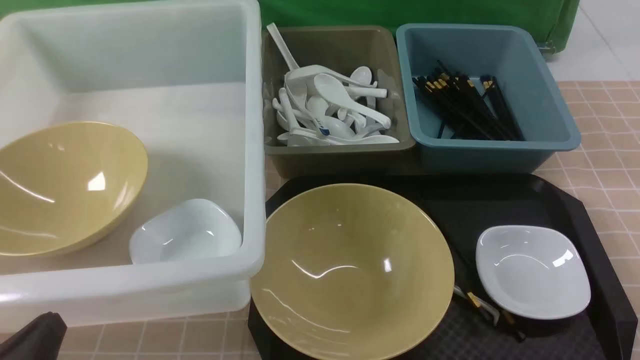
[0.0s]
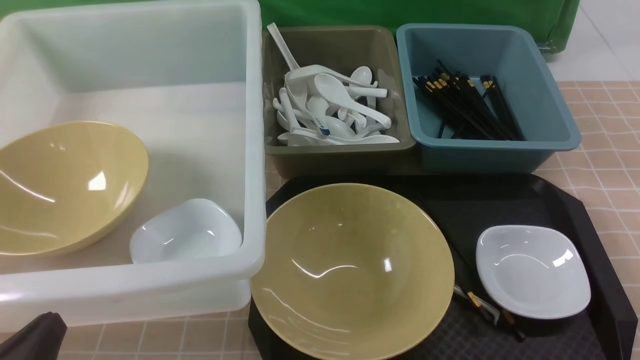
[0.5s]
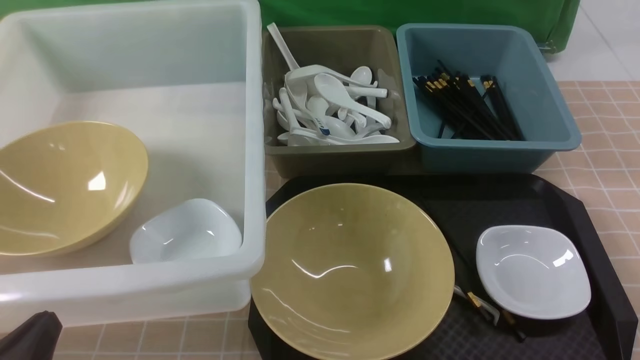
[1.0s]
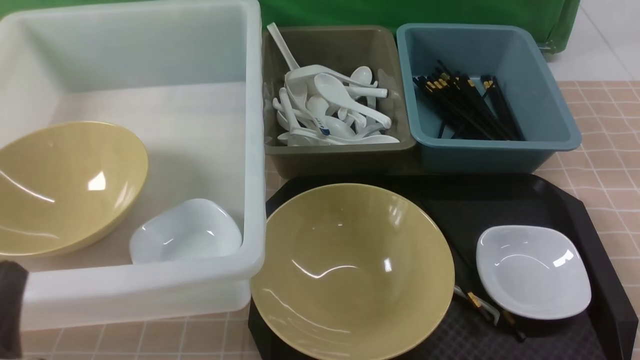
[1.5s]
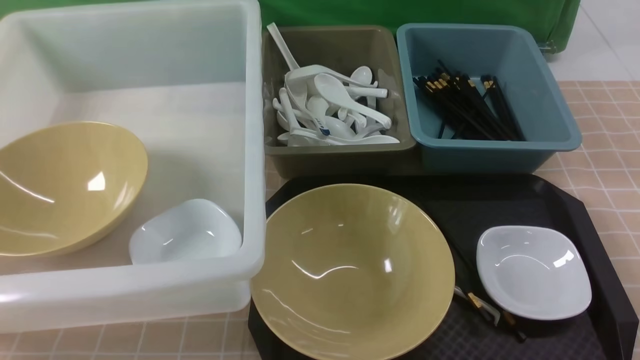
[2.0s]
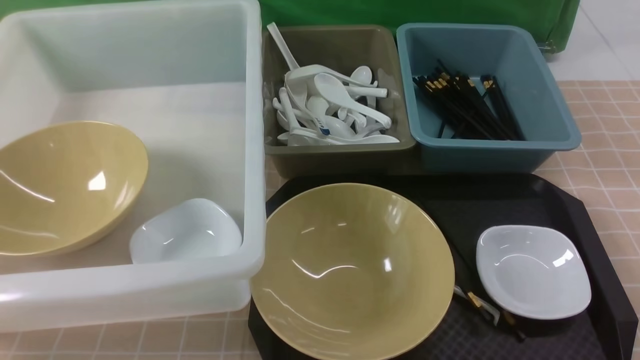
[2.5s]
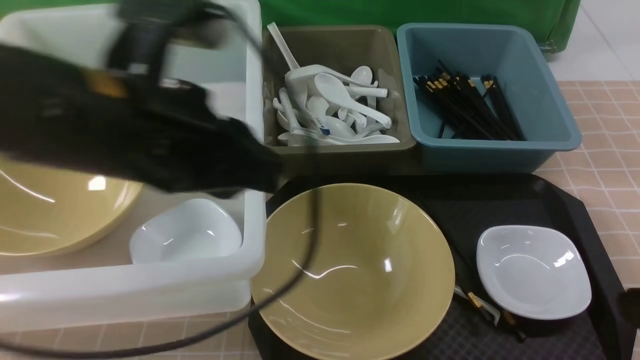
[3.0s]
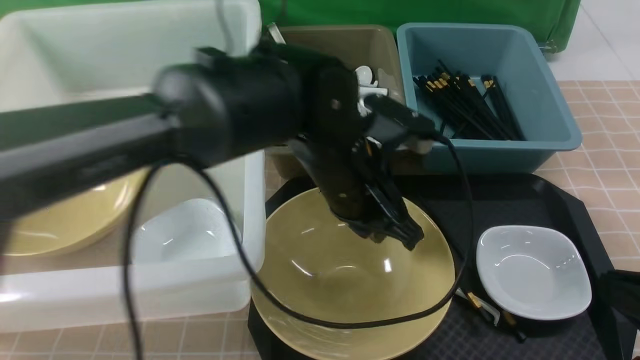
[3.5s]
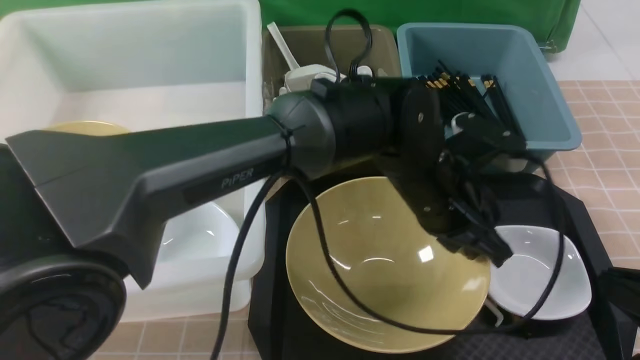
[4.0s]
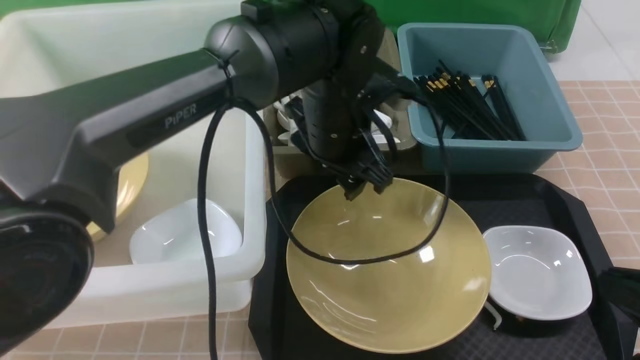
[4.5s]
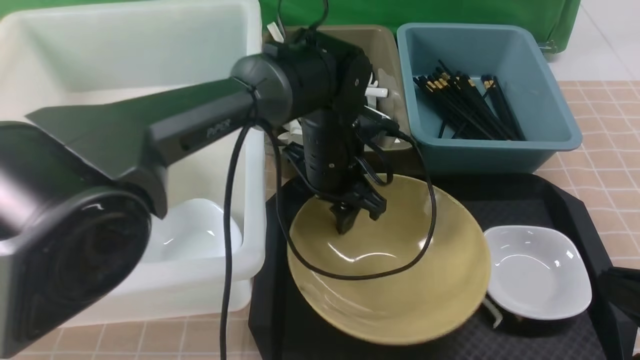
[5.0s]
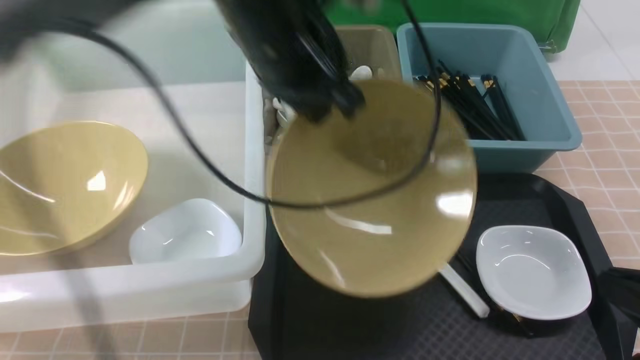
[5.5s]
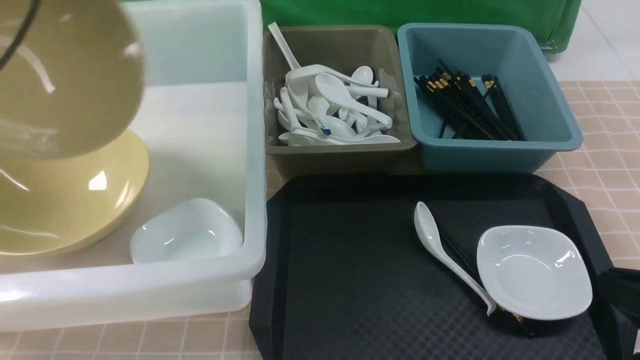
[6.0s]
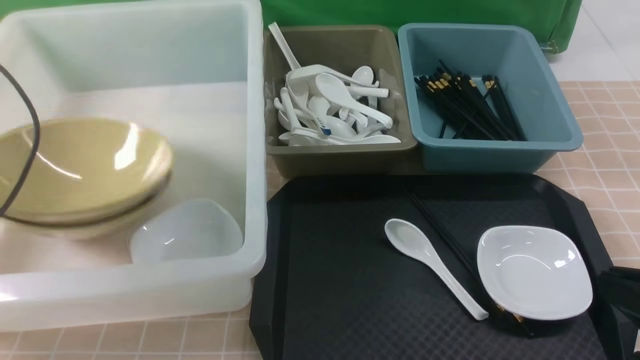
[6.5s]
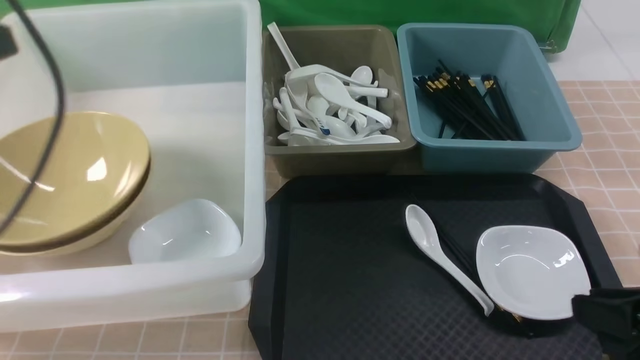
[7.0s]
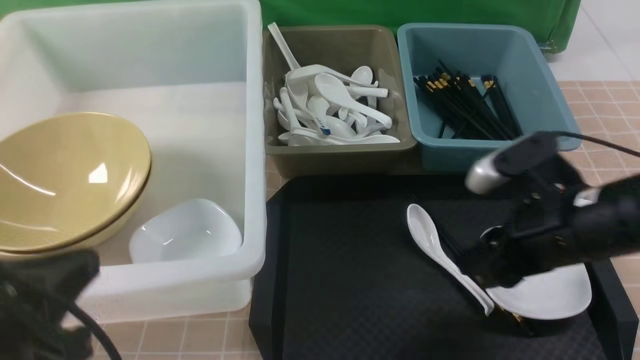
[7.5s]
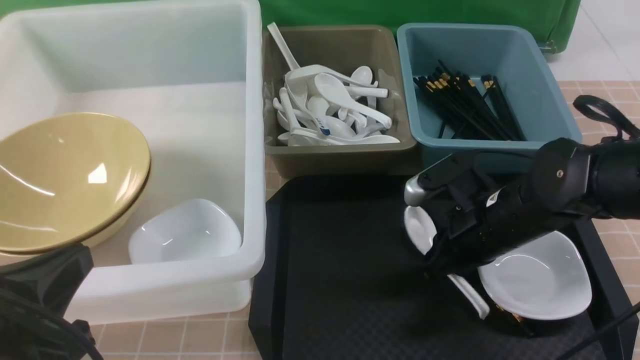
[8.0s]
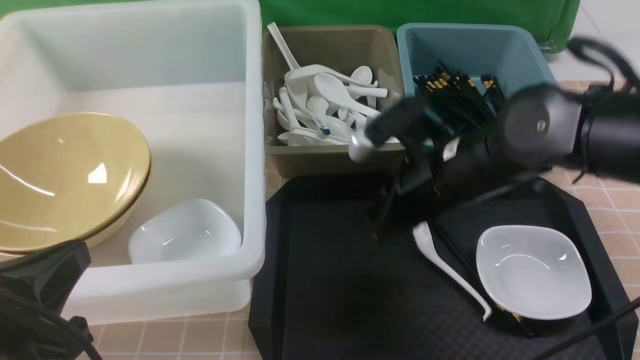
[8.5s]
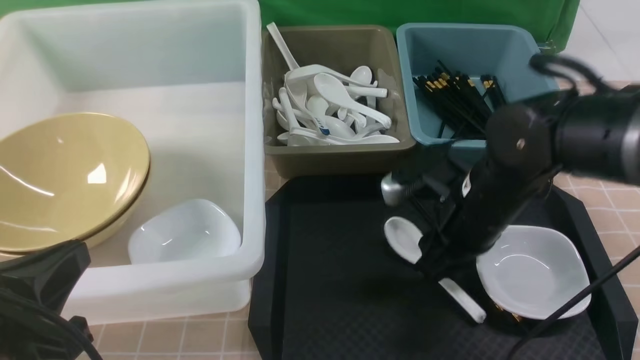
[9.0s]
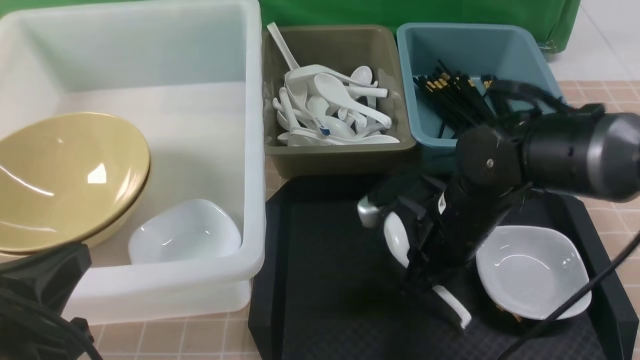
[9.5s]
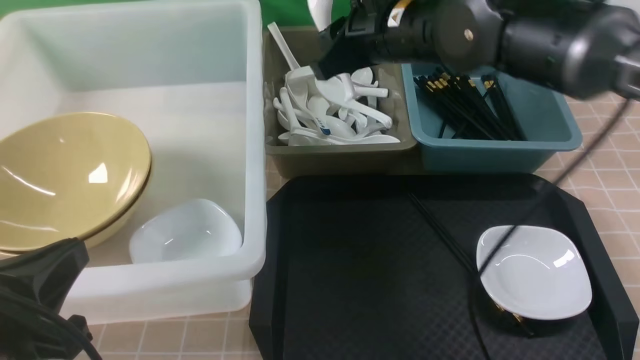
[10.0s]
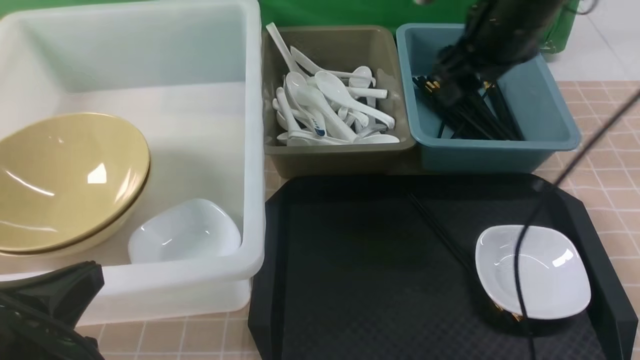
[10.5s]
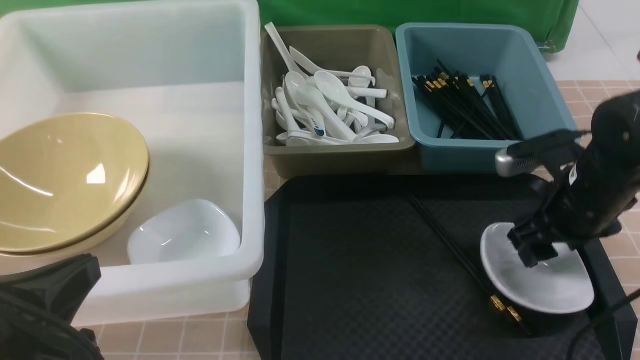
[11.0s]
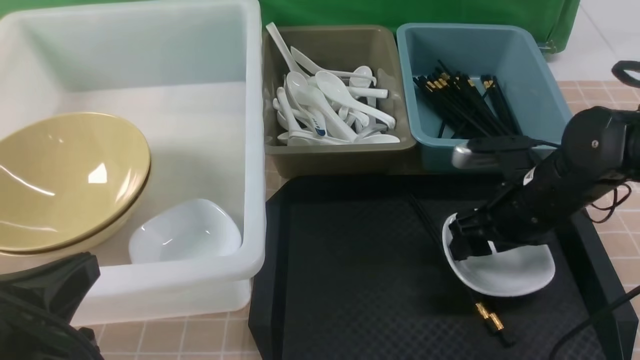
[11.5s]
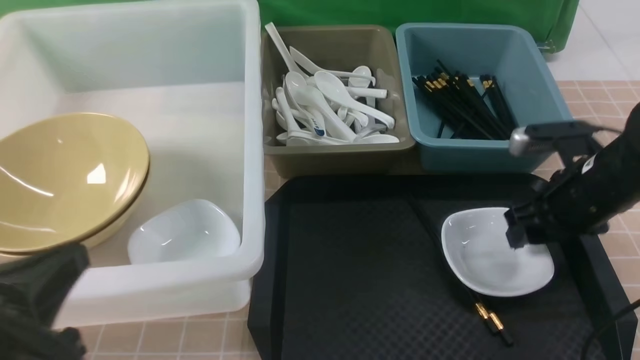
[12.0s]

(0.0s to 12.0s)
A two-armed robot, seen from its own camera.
Task of the whole recording: on brown table put chopsticks spoon bowls plates into blue grey white boxes.
Step, 0.0s - 5.0s: use the left arm to grab the yellow noodle bowl on the left.
Step, 5.5s - 6.5s: use the left arm to put the noodle bowl into the large storage box on the left.
Step, 7.0s - 9.5s: use the right arm to grab the soup spoon in the middle.
0.0s - 2.0s: The left gripper travels upward by about 10 cm.
2.0s - 4.0s: The left gripper goes about 40 cm to the right and forward. The right gripper moves forward, approximately 5 cm, and reaches approximately 10 cm upward, then returns.
4.0s - 6.0s: The left gripper shifts about 40 cm to the left and upward, and opens, then closes again.
6.0s - 8.0s: The left gripper is displaced backward, downward and to the right by approximately 25 cm, and opens and closes again. Meanwhile the right gripper shifts about 25 cm forward, to the left and downward, and opens, then closes once more.
8.0s - 10.0s: The right gripper goes up and down, some 15 cm each way, reversing 2 times, and opens.
10.0s - 12.0s: The right gripper goes approximately 25 cm to the right, downward and backward.

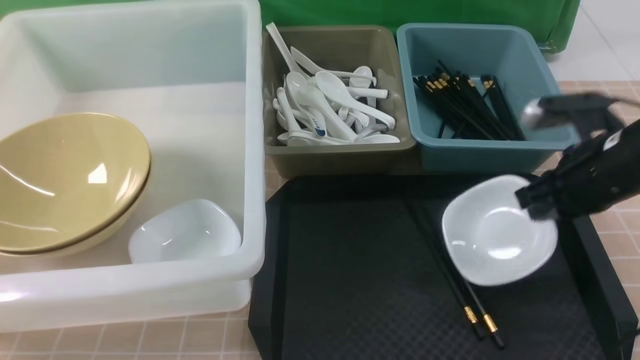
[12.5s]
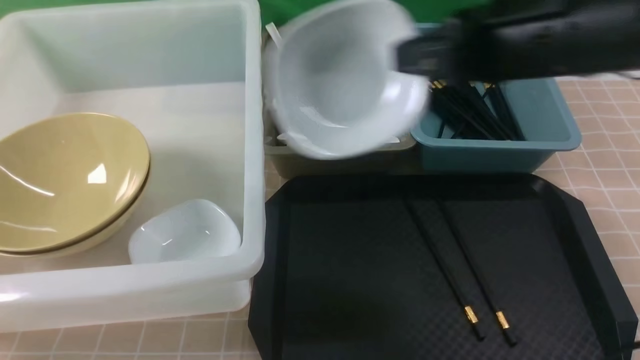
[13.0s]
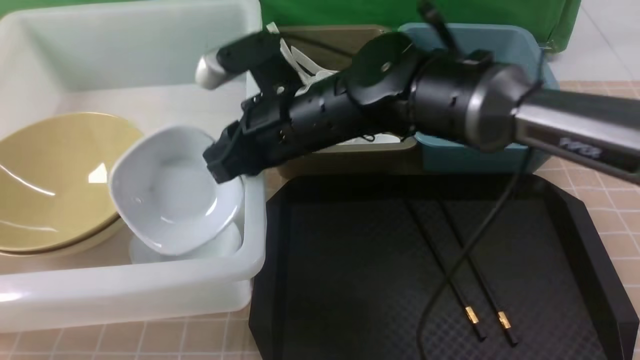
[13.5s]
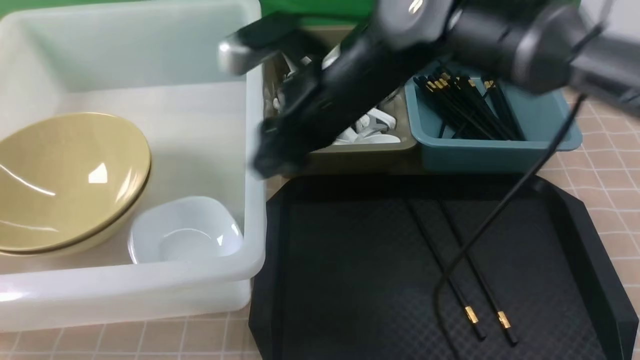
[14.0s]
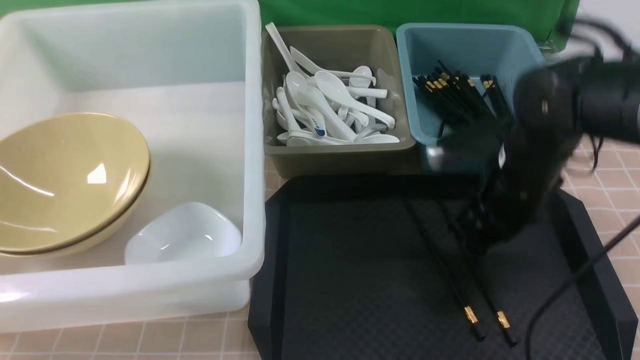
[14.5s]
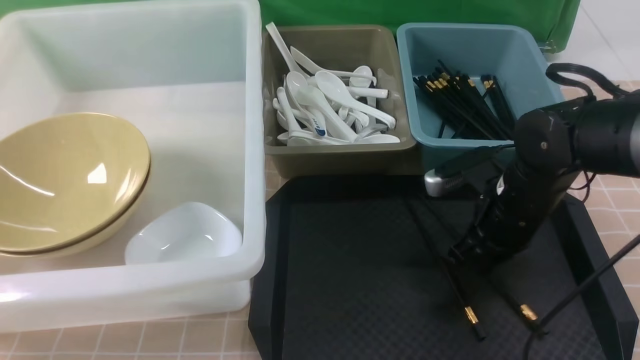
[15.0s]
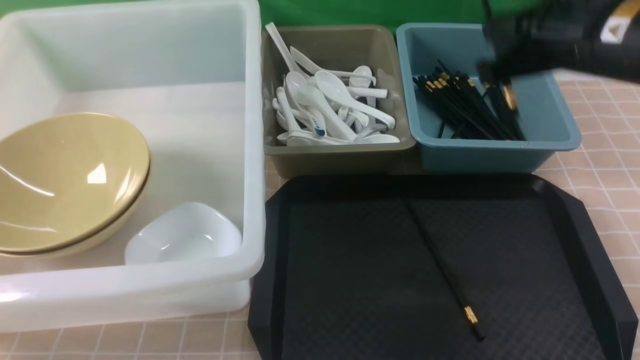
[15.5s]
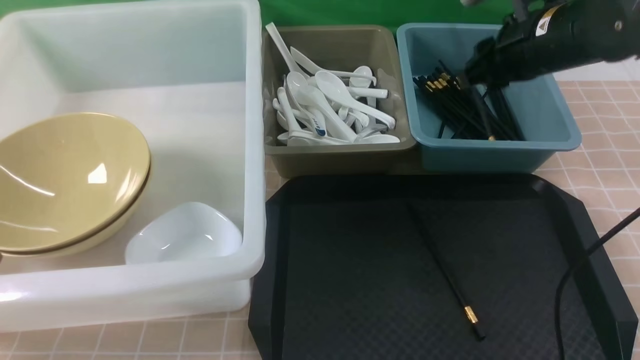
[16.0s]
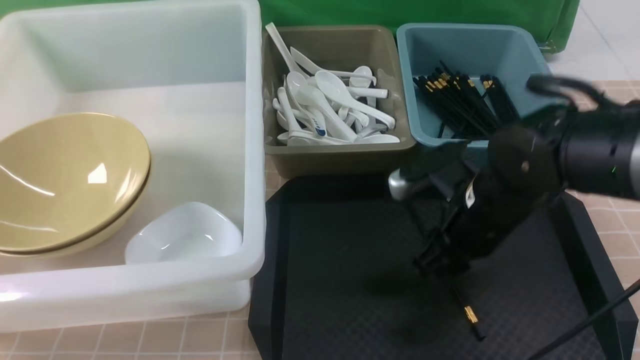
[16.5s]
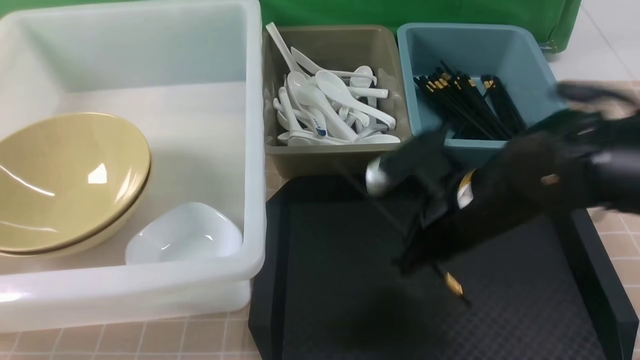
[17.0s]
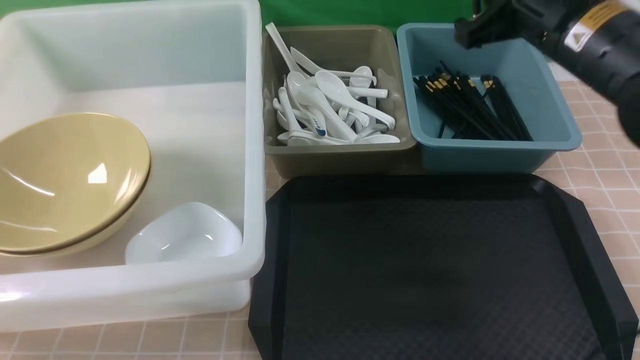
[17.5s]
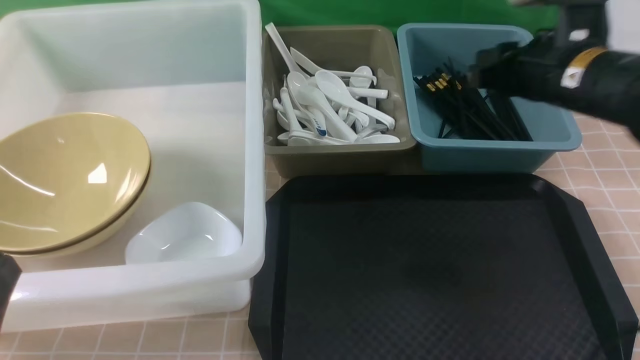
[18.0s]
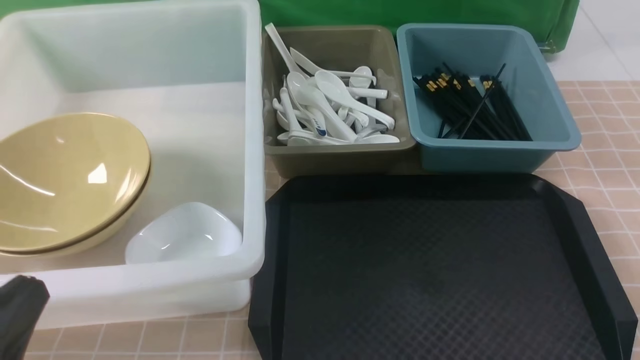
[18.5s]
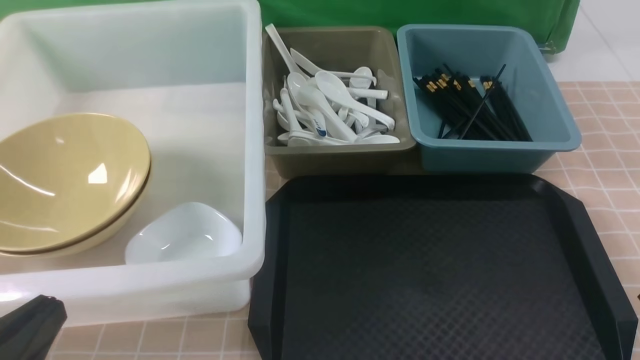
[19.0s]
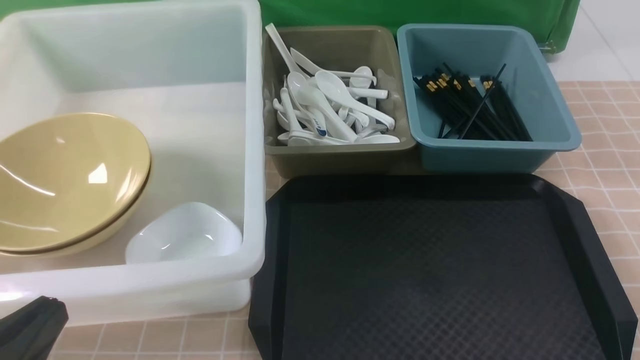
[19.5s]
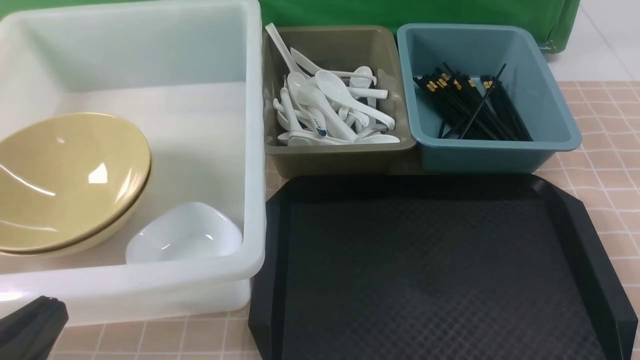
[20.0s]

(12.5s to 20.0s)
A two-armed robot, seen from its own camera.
Task of the whole recording: on brown table put chopsticks spoon bowls plates into blue grey white boxes.
Step, 12.5s - 14.0s: use the right arm to put the plate into the large storage box on the left.
Step, 14.5s - 15.0s: use the right arm to grab a chopstick.
Step, 15.5s - 16.0s: use the right arm to put a chopstick into the small storage box on the right.
Step, 17.0s - 18.0s: use the right arm to put a chopstick into the small storage box on the right.
12.5s - 14.5s: The right gripper travels to the left and back again, some 25 cm each way, and opens up.
14.5s - 16.5s: The right gripper goes upward and returns, roughly 15 cm each way, and closes and opens again.
16.5s - 18.0s: The right gripper shifts roughly 15 cm upward and to the right.
18.0s - 20.0s: The right gripper moves backward and downward, about 30 cm.
